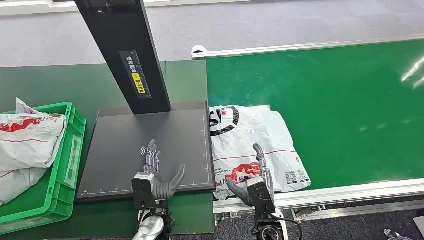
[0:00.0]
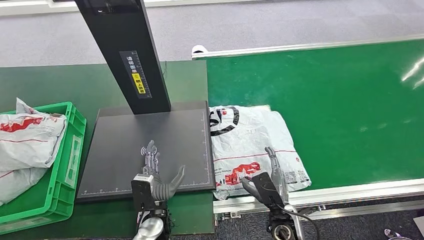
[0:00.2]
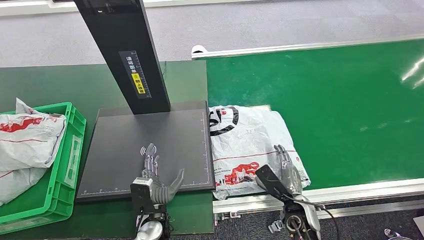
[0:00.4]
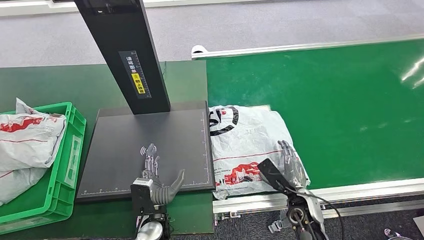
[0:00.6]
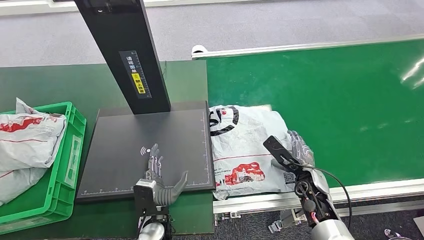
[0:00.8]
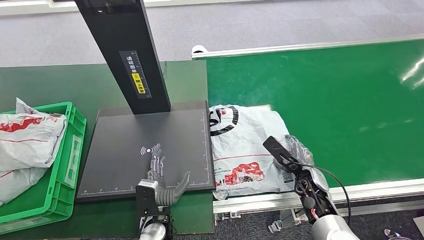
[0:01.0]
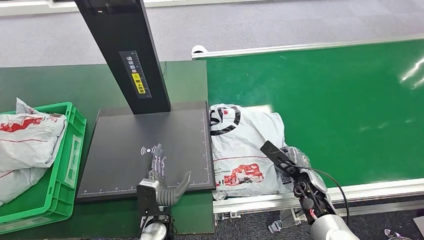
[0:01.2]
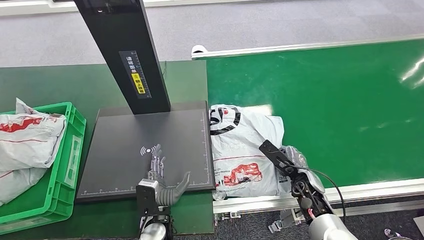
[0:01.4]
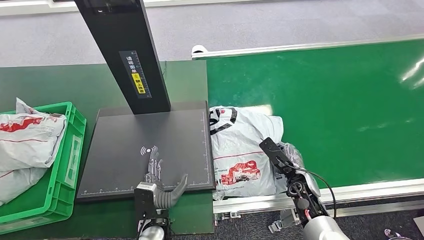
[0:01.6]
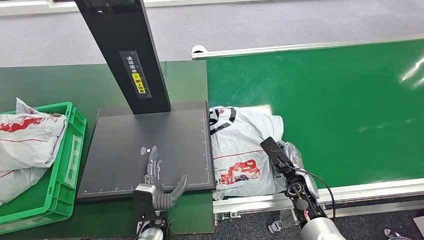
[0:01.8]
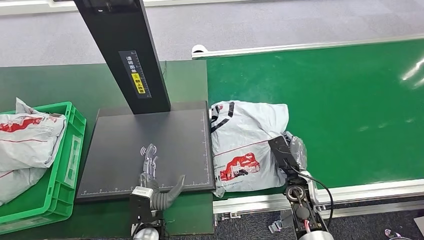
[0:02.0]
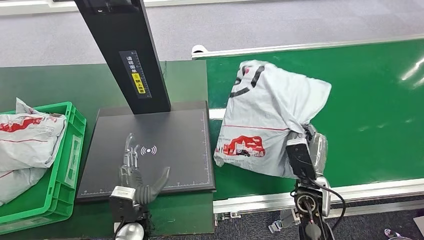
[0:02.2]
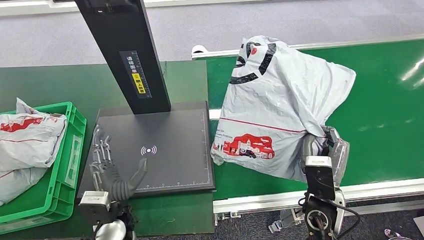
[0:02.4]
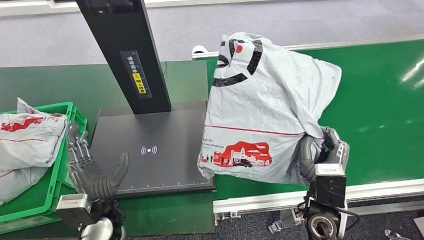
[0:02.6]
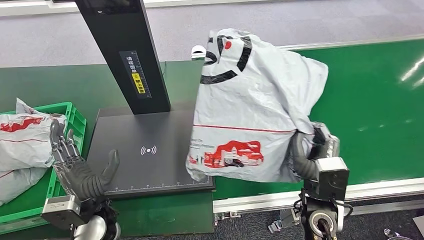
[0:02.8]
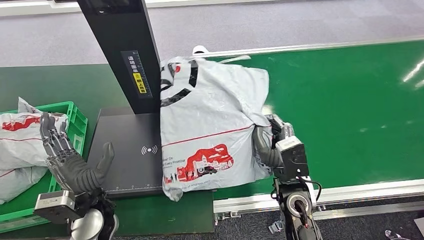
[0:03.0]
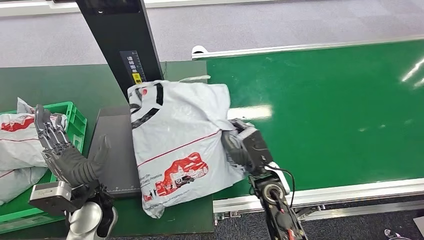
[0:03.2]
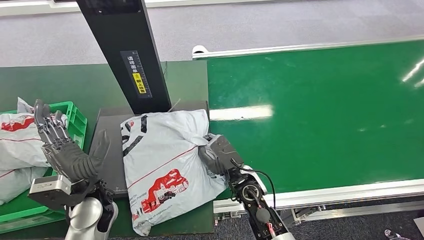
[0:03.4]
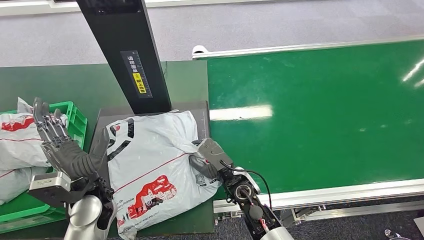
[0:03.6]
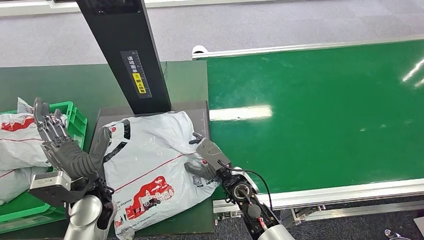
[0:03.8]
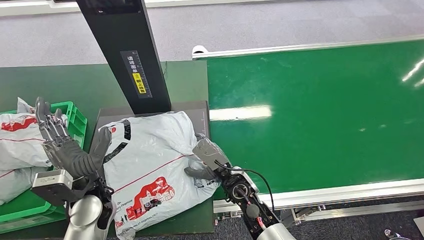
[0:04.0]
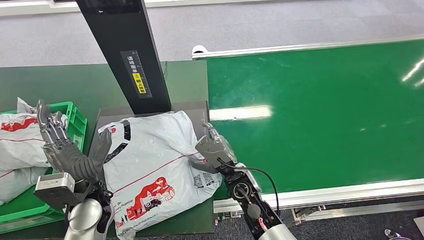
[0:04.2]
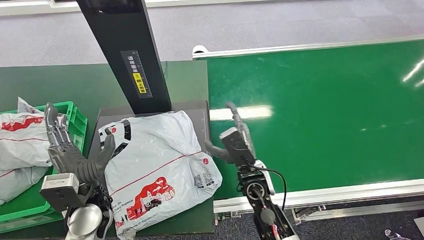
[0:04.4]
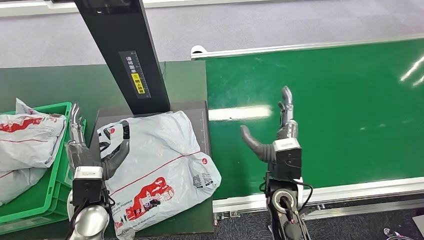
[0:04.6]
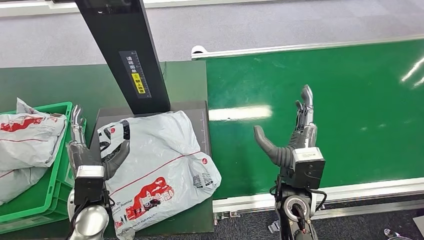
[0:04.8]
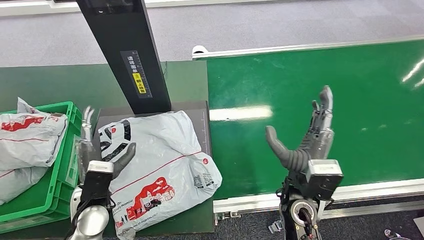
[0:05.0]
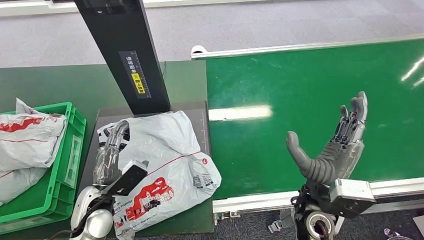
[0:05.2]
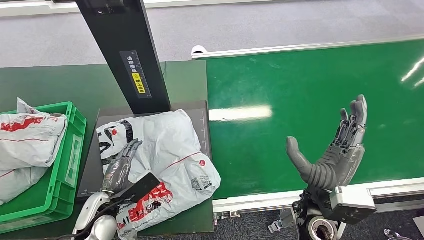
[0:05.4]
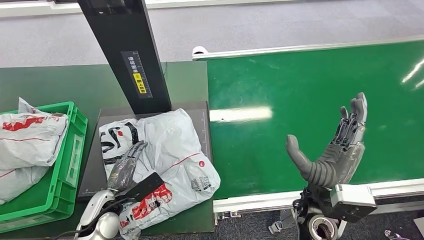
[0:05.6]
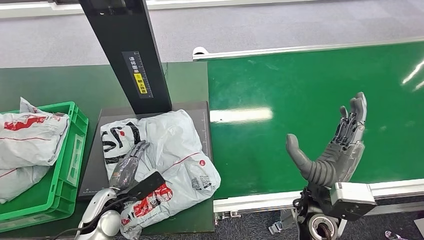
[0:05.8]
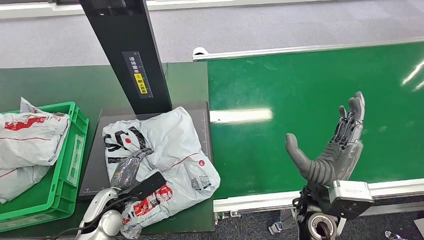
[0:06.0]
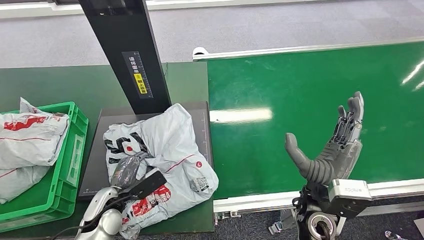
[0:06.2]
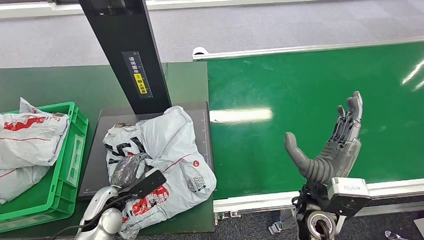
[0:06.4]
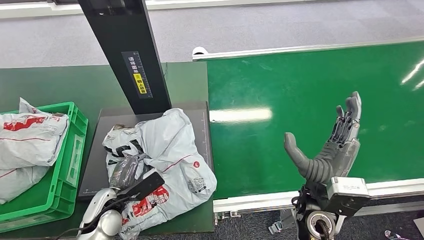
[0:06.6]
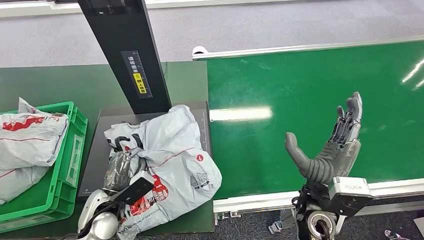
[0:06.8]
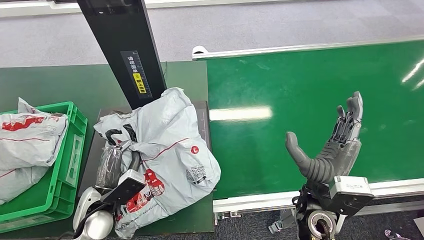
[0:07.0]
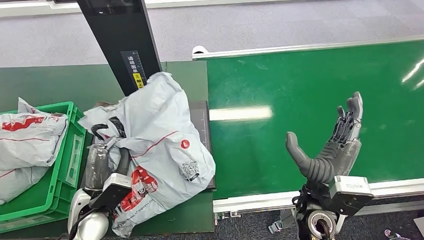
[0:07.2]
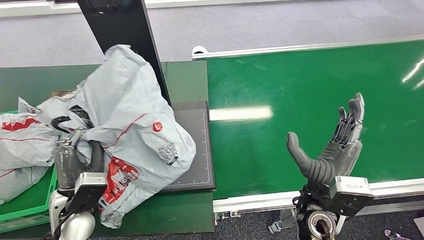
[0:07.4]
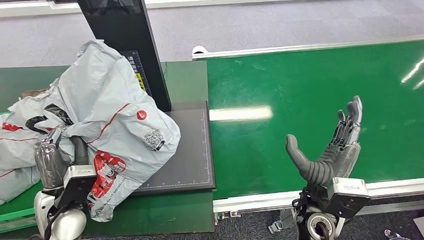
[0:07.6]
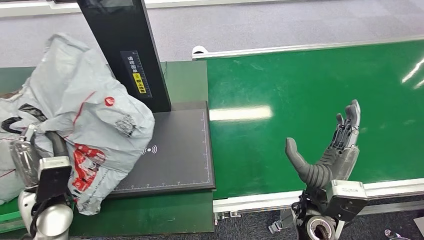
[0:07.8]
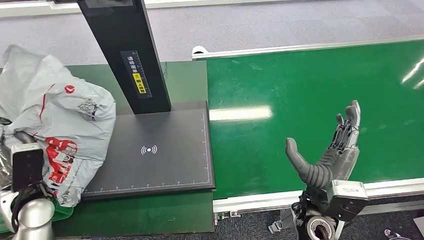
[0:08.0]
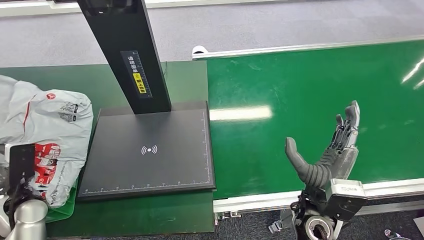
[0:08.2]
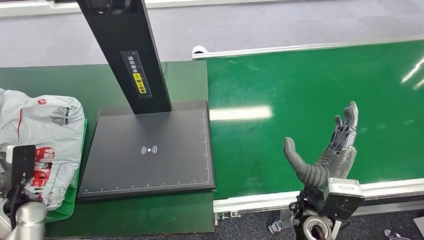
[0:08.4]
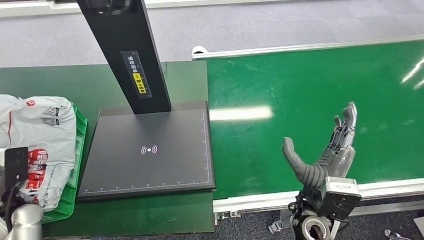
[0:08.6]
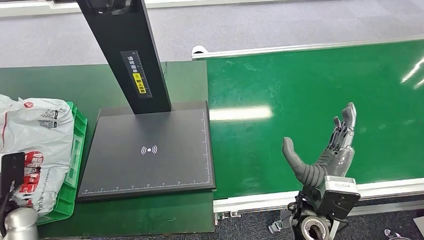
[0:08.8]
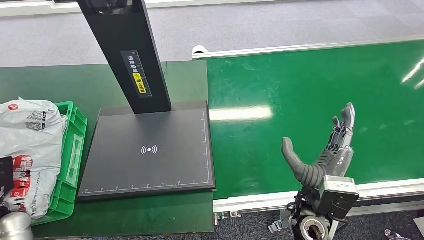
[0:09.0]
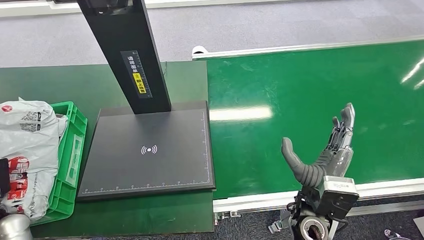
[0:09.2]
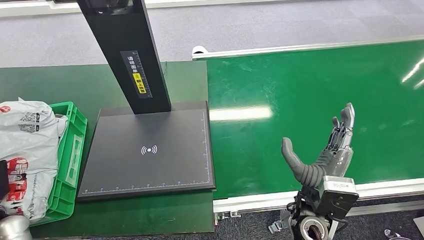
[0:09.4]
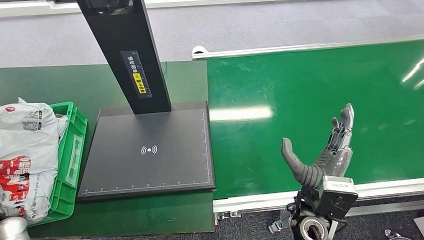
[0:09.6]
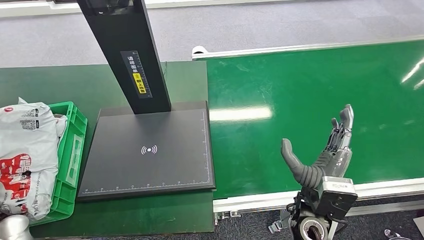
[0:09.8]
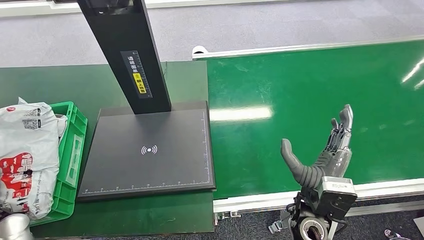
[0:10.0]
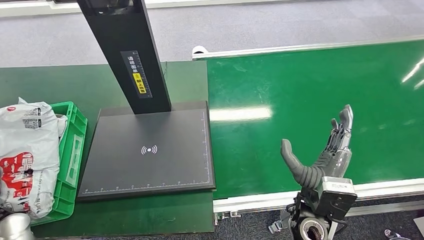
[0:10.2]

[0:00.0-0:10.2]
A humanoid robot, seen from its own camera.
Step, 0:00.0 to 0:03.0: Pick up the package from the conveyor belt.
Step, 0:03.2 to 0:04.2: Place the package onto the inbound machine.
Step, 0:04.4 to 0:08.4: Pick up the package from the inbound machine.
Step, 0:08.6 to 0:10.2: Place the package into the parcel locker.
